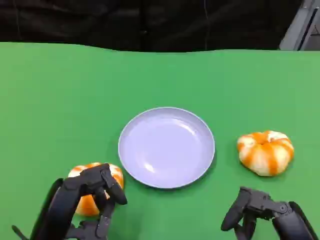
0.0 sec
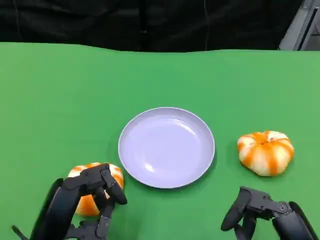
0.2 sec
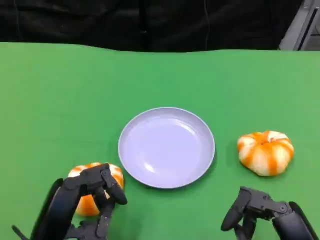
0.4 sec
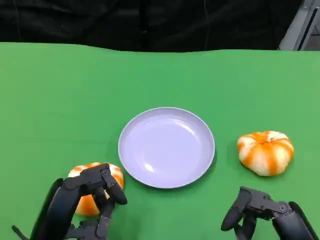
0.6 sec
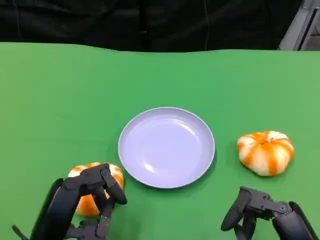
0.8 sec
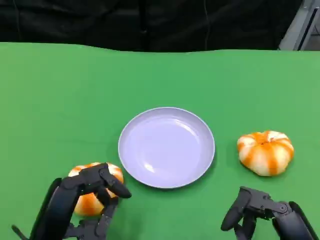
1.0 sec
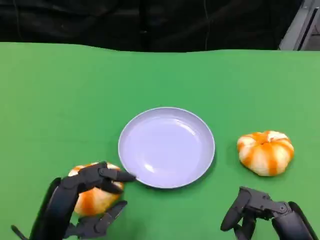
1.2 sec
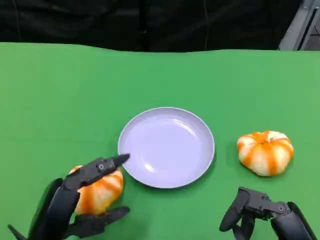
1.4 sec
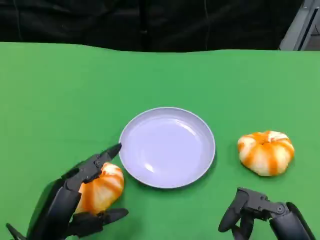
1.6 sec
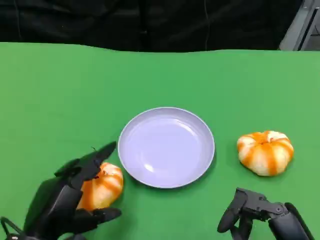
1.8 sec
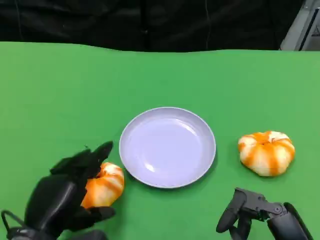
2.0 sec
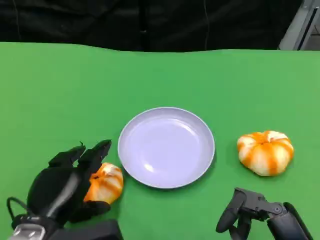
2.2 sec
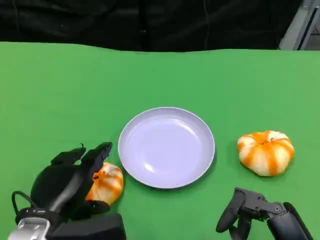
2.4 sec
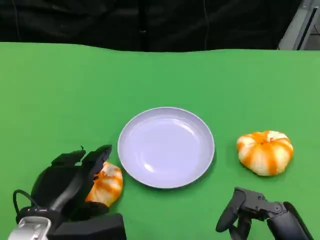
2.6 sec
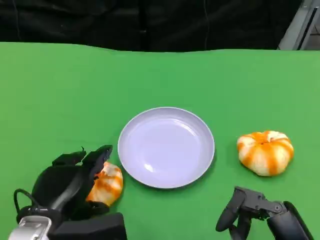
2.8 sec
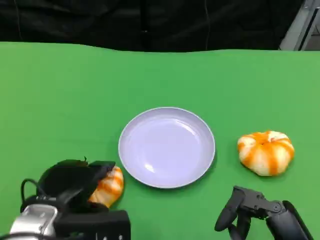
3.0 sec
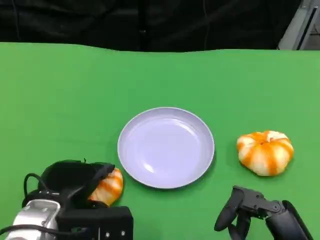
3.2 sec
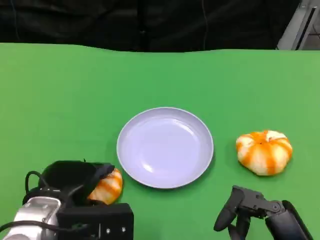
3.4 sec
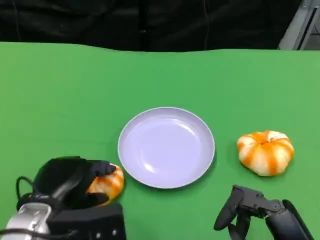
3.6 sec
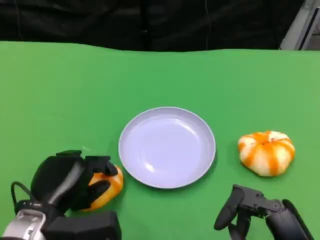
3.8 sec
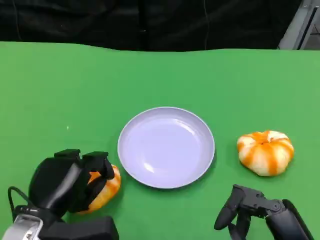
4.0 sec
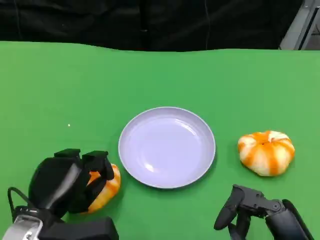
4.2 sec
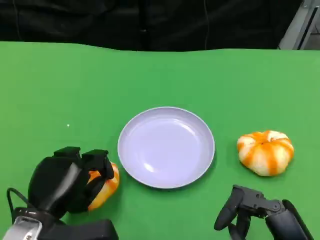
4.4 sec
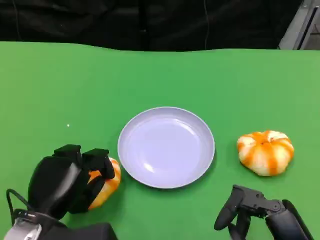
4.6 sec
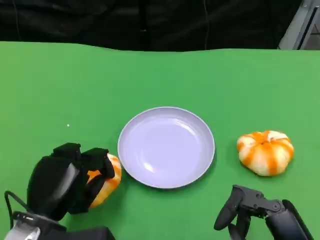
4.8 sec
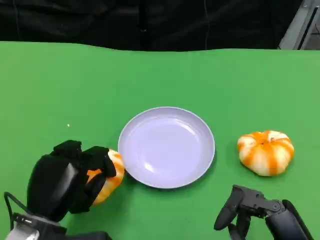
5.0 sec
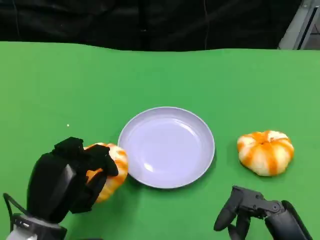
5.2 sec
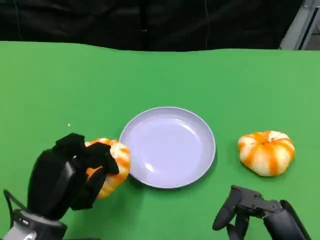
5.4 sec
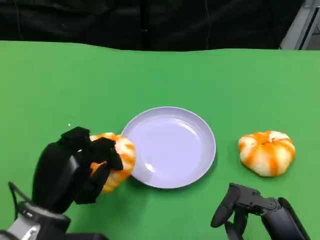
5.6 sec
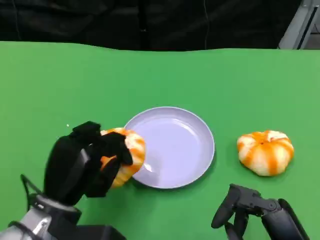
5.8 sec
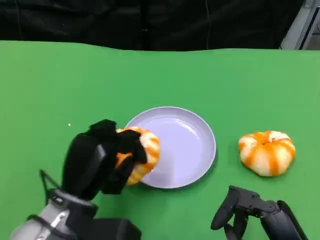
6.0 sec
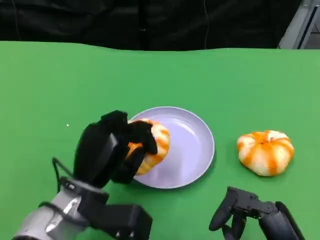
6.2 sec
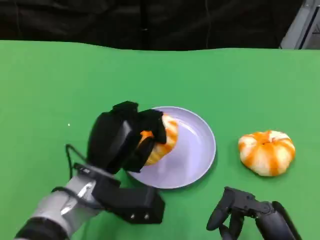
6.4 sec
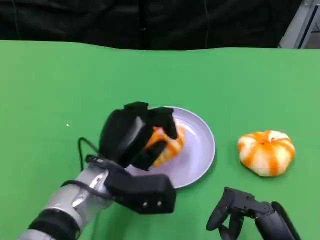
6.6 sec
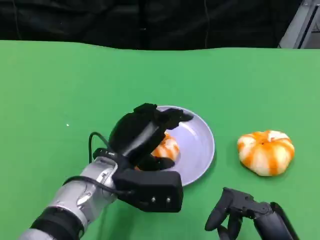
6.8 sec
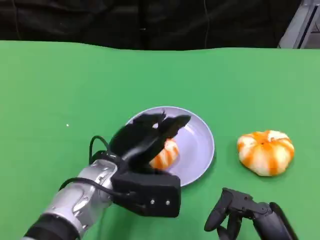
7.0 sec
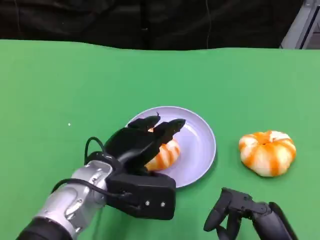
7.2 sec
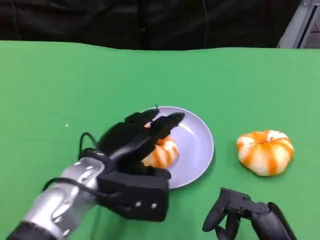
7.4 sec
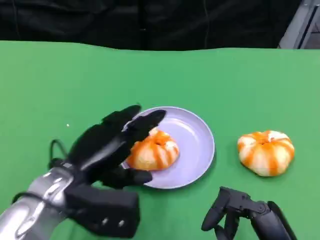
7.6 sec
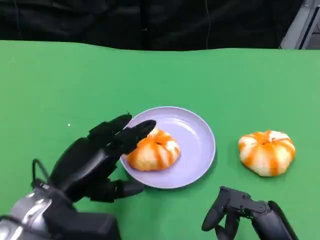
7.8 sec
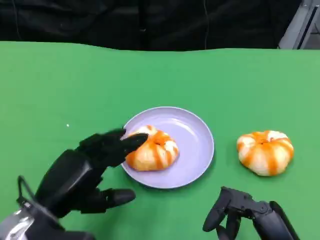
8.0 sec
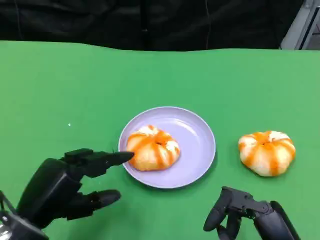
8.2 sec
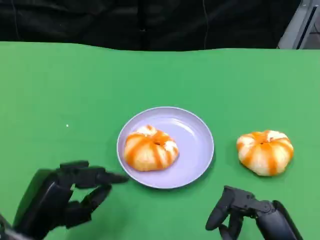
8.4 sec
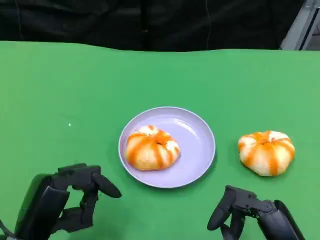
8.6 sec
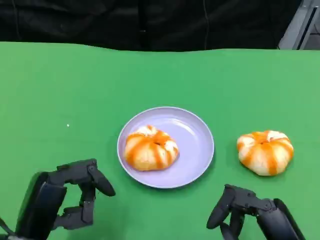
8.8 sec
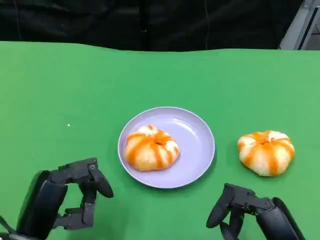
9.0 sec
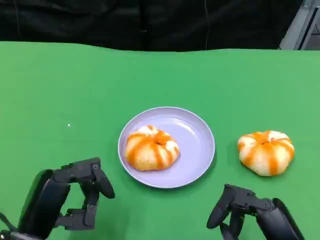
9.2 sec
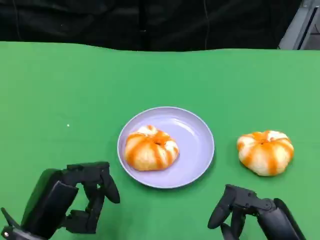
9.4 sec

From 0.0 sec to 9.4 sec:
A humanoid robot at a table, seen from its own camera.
Task of the whole recording: Grasp the bread from the table and place it into the plate.
From 0.0 sec to 1.6 sec: The hands move only a little.
From 1.6 sec to 3.2 sec: The left hand is displaced forward by some 5 cm.
From 4.8 sec to 6.2 sec: The left hand shifts roughly 5 cm to the right.
From 6.2 sec to 7.8 sec: The left hand moves to the left, approximately 5 cm.
From 7.8 sec to 9.4 sec: The left hand ends up some 5 cm from where it was.

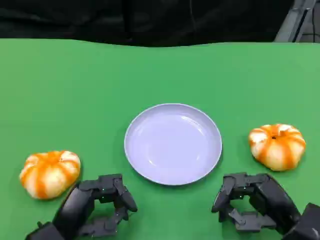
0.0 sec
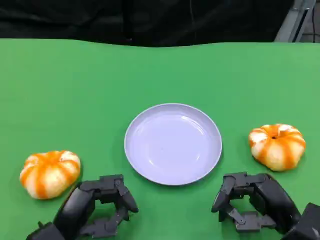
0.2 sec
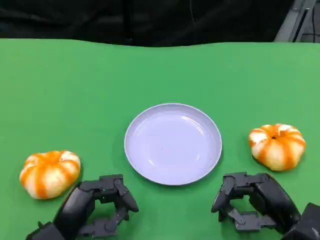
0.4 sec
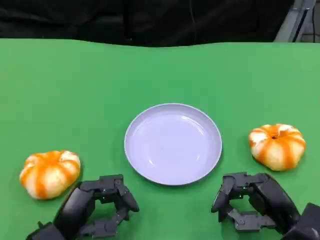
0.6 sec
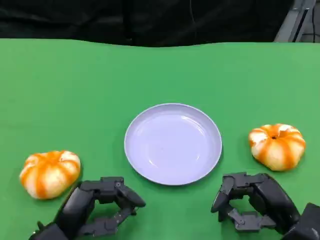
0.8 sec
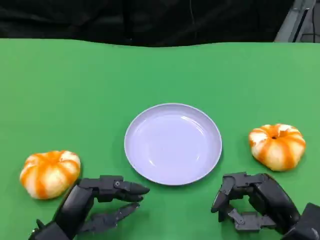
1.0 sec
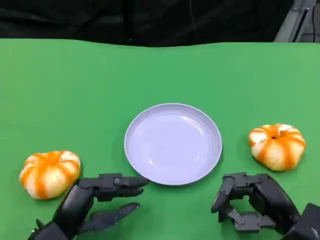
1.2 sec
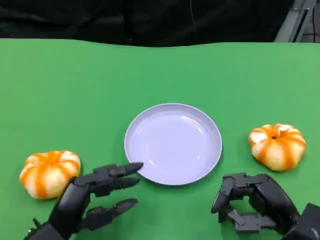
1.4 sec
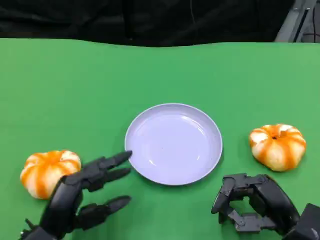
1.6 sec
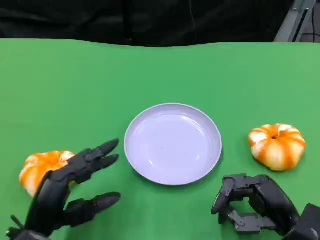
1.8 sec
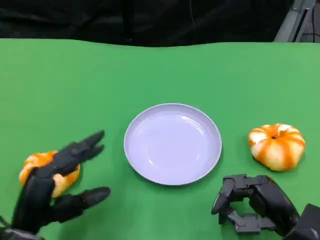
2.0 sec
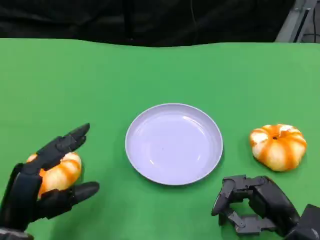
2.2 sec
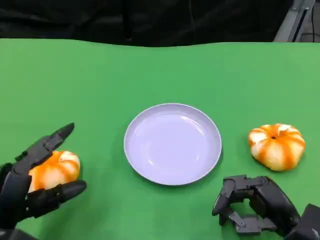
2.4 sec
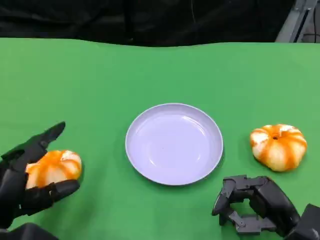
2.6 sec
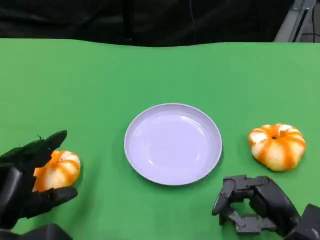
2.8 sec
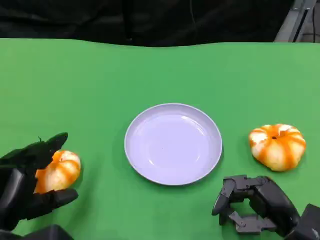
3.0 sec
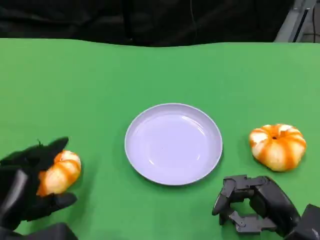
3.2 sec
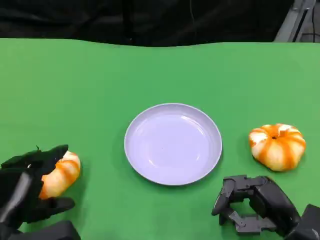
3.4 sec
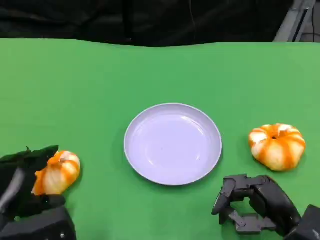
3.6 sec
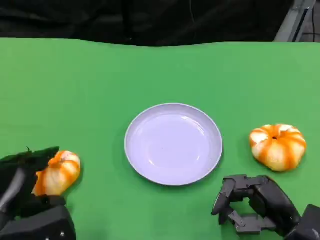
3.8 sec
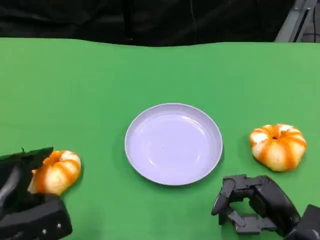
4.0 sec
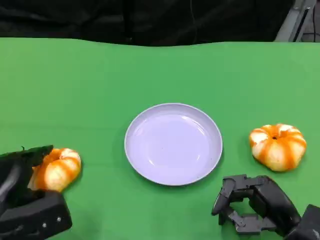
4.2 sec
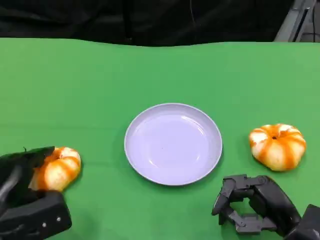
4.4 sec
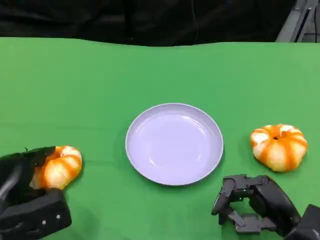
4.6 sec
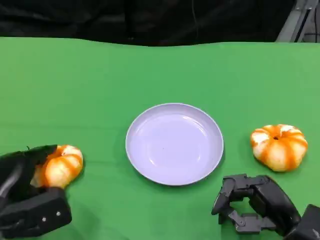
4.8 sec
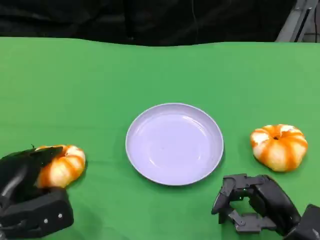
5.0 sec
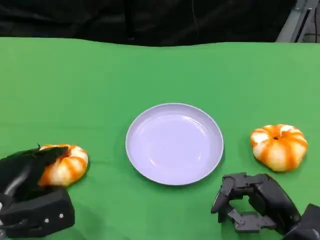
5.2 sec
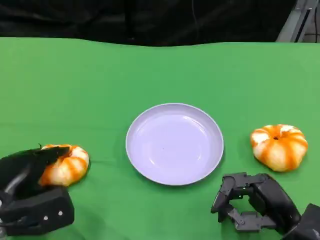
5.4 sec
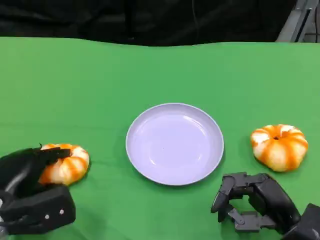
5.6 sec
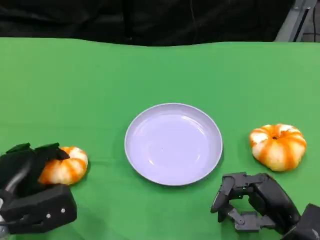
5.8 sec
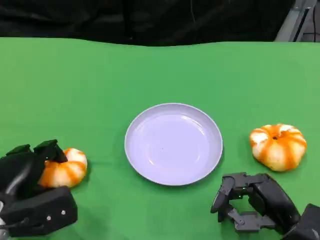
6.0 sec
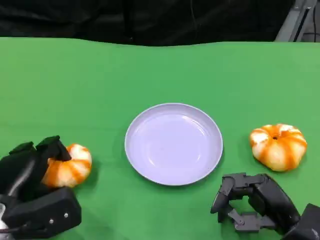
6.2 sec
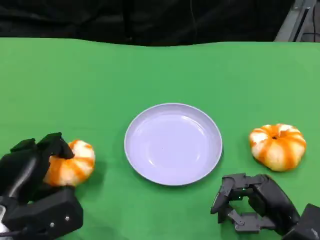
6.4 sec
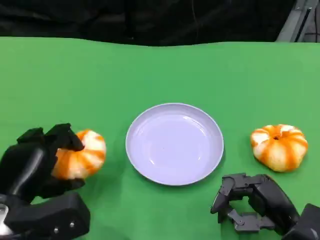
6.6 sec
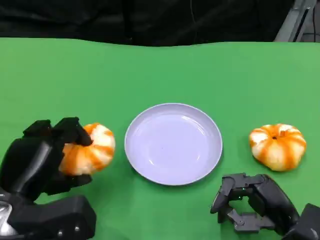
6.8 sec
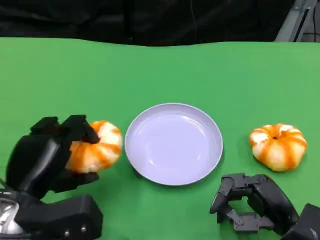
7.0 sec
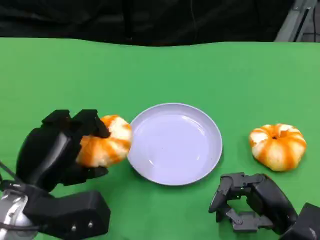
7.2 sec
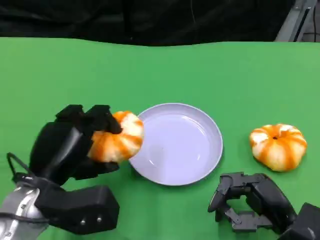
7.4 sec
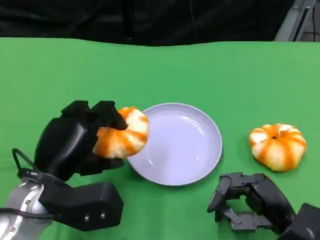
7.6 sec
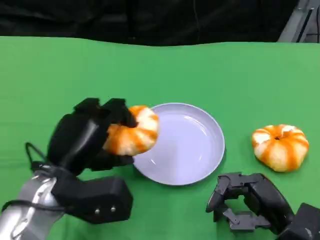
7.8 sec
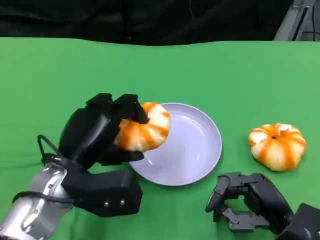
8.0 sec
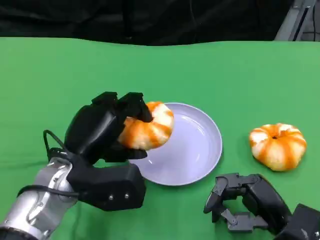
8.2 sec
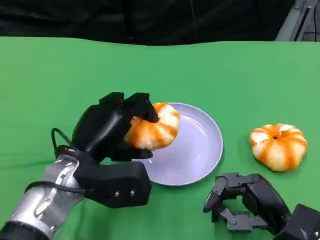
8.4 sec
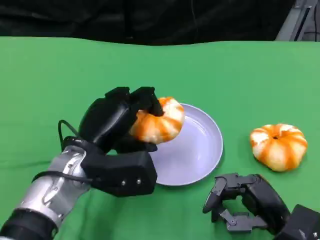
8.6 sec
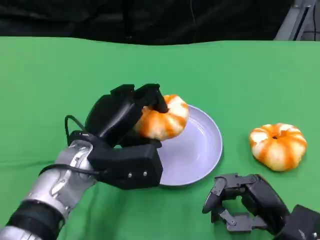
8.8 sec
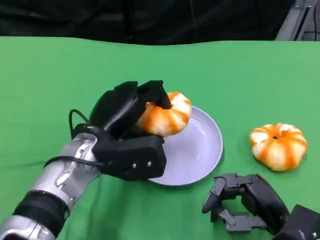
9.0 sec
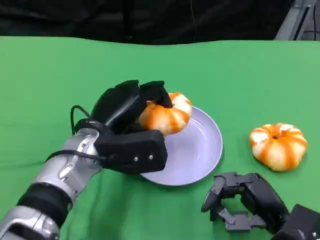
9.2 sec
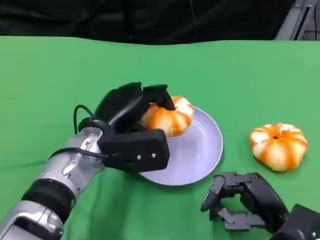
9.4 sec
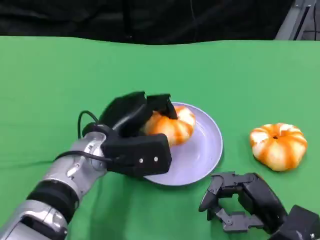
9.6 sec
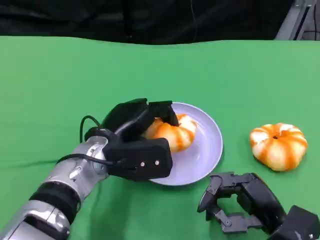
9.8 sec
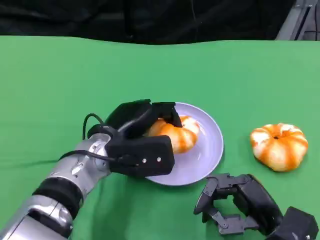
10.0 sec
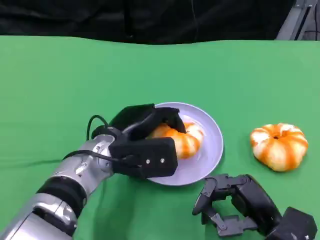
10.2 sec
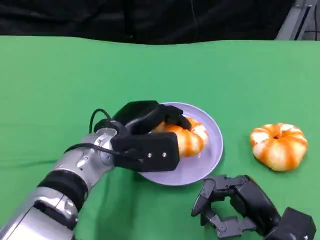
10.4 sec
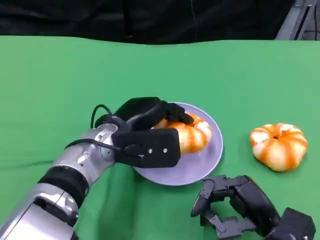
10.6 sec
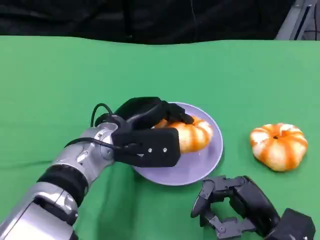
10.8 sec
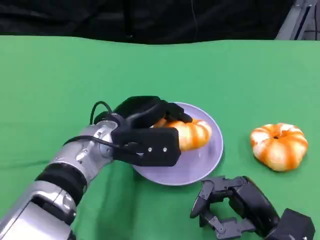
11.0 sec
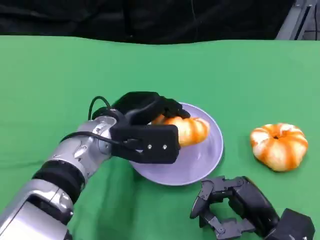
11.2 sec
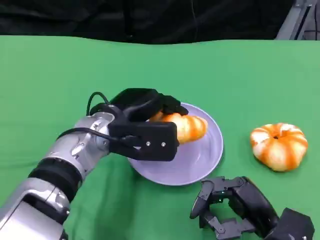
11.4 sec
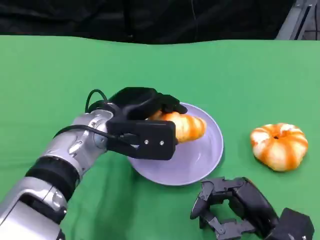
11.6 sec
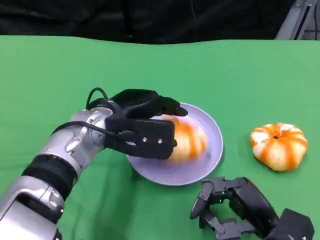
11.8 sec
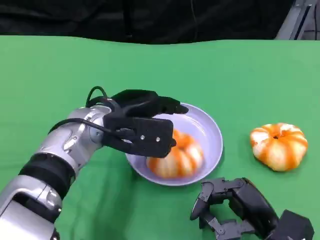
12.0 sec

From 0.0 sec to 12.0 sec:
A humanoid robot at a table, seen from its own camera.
Task of the whole recording: Grasp the bread from the table and place it into the plate.
From 0.0 sec to 1.6 sec: The hands make only small movements.
From 1.6 sec to 3.0 sec: The left hand moves to the left, about 5 cm.
From 3.0 sec to 4.4 sec: The left hand shifts by approximately 5 cm.
From 4.4 sec to 6.0 sec: There are only small adjustments of the hands.
From 6.0 sec to 7.6 sec: The left hand heads to the right and upward, covering about 10 cm.
From 7.6 sec to 9.0 sec: The left hand heads to the right and forward, covering some 10 cm.
From 10.4 sec to 12.0 sec: The hands move only a little.

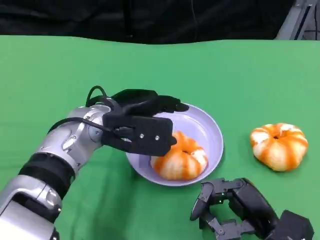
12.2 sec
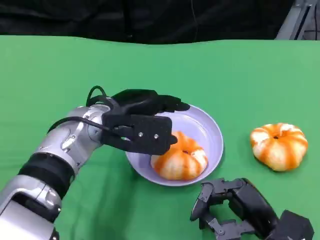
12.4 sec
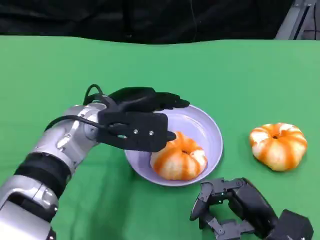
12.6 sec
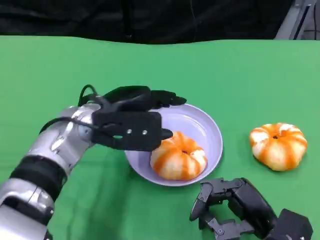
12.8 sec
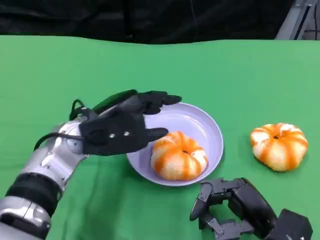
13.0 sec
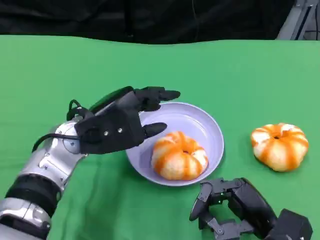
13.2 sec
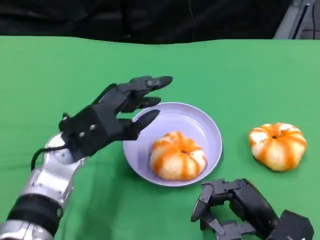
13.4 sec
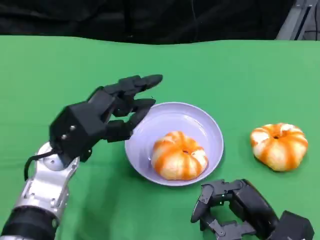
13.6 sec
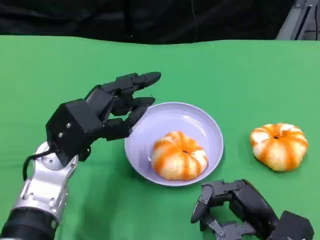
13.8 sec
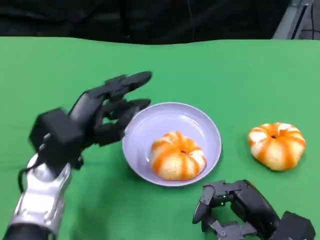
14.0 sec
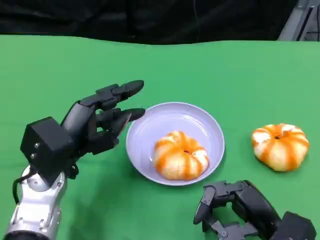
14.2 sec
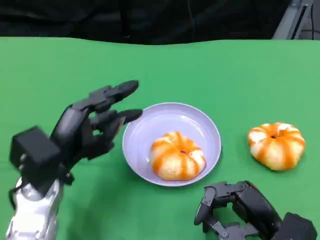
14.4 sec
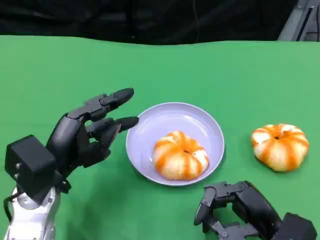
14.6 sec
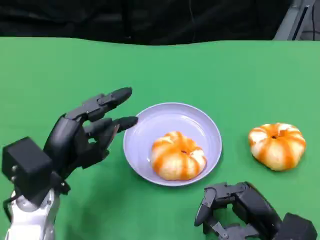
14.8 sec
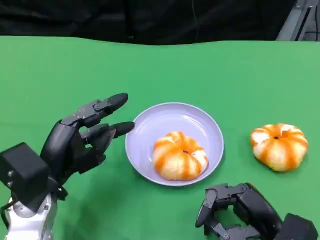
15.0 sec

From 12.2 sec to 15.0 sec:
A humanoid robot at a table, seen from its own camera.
Task of the whole recording: Grasp the bread from the table and place it into the plate.
From 12.2 sec to 13.6 sec: The left hand travels to the left by some 5 cm.
From 13.6 sec to 15.0 sec: The left hand shifts by about 5 cm.
